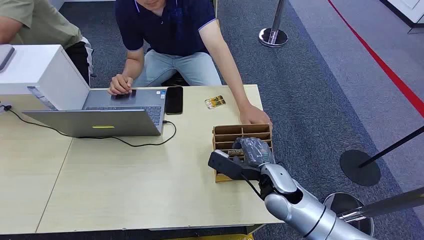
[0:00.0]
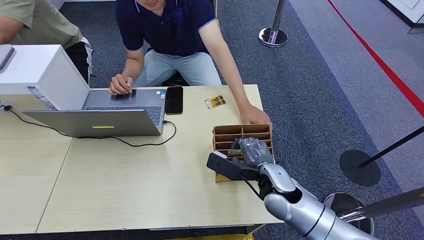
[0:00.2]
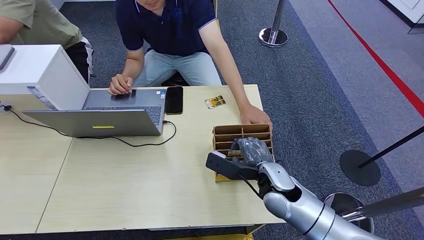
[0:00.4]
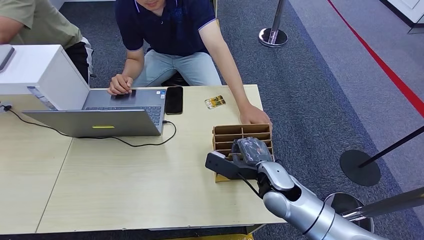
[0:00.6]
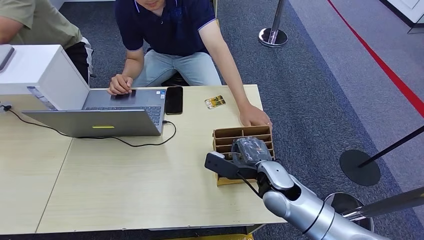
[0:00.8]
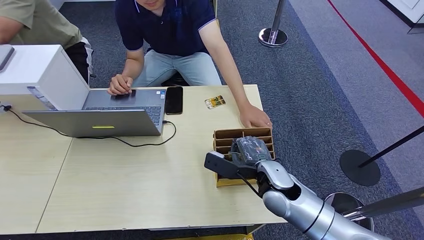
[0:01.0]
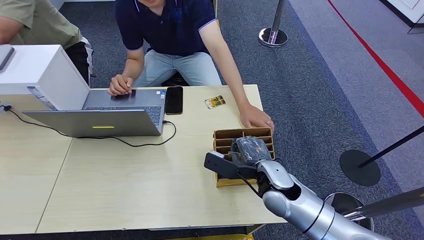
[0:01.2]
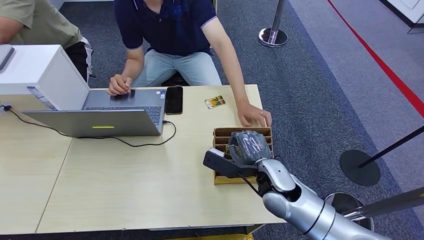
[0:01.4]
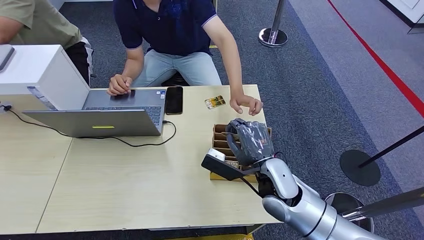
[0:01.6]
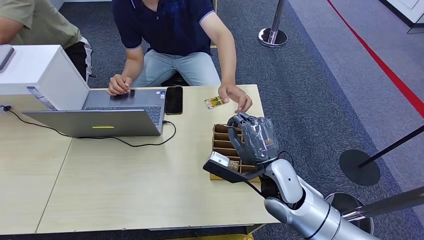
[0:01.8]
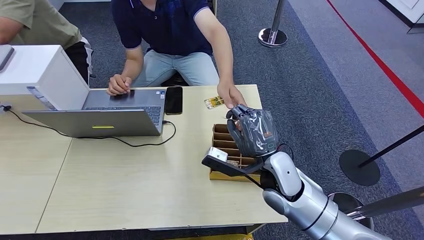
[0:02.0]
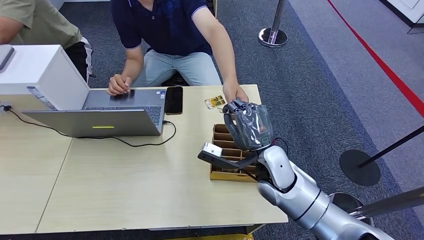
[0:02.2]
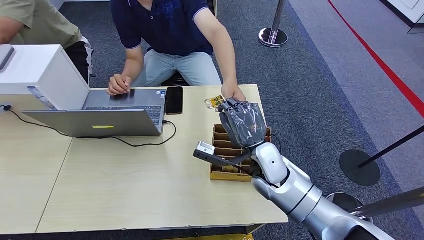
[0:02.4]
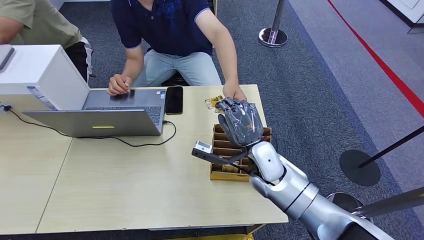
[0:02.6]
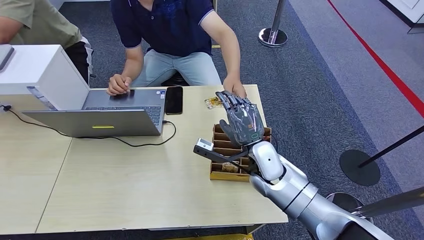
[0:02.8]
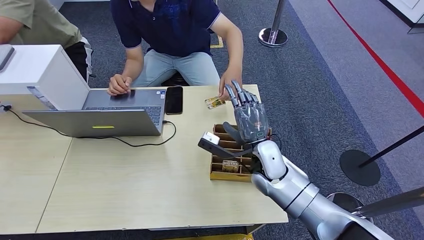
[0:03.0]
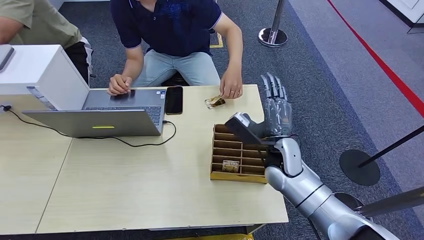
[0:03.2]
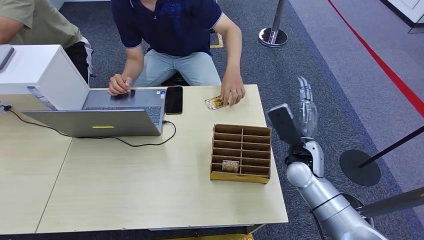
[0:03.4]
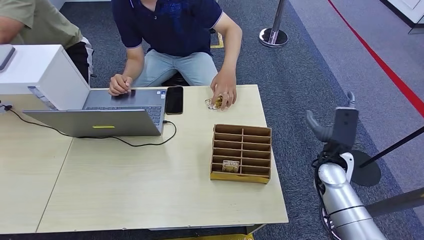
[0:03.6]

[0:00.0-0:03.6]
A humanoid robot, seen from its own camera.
Step, 0:00.0 to 0:01.8: Pick up the key card from the card box.
Step, 0:02.0 to 0:03.6: Hand the key card to the target.
0:01.8 to 0:03.6: The right hand is displaced to the right by some 15 cm.

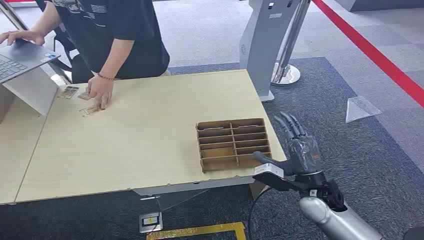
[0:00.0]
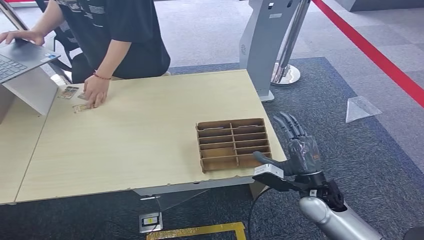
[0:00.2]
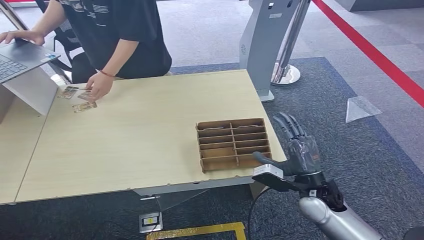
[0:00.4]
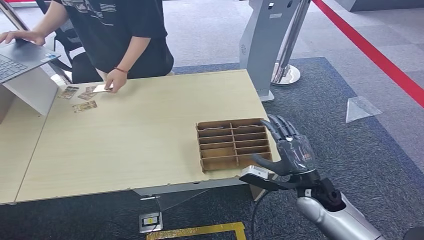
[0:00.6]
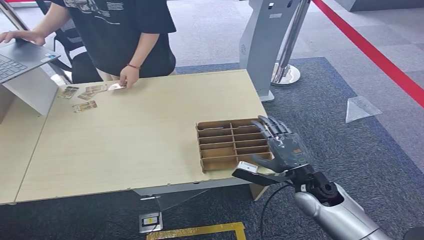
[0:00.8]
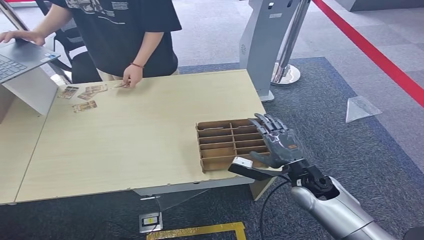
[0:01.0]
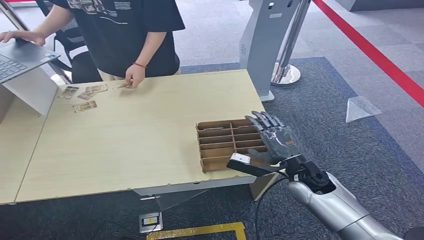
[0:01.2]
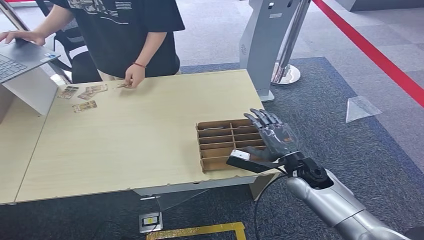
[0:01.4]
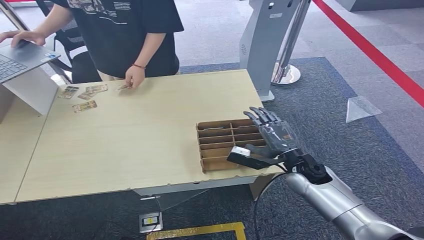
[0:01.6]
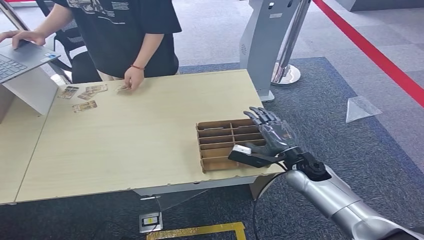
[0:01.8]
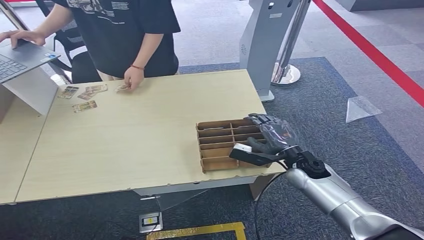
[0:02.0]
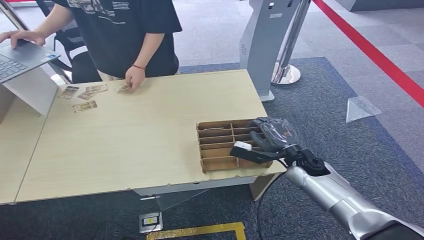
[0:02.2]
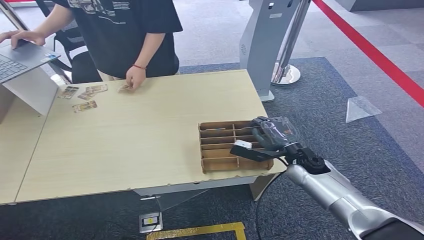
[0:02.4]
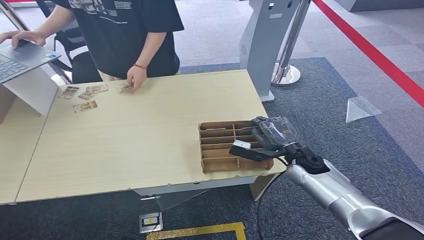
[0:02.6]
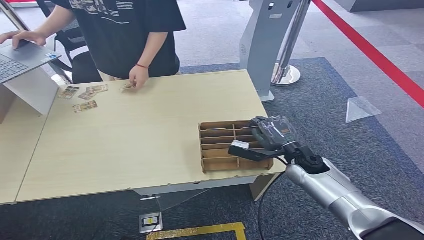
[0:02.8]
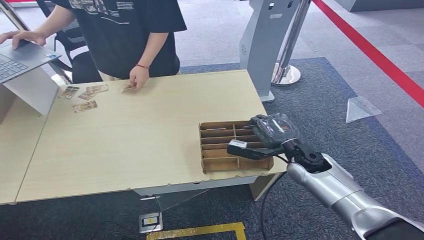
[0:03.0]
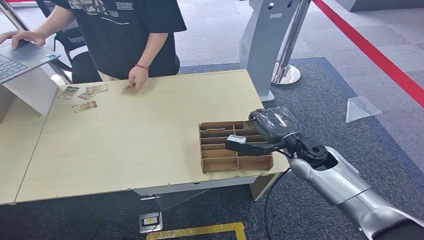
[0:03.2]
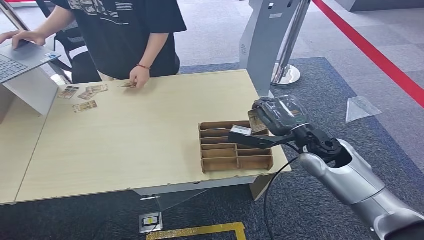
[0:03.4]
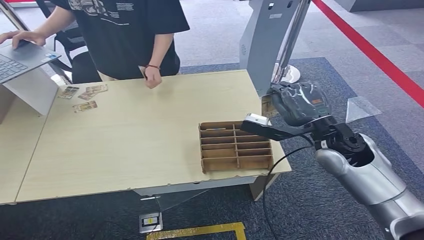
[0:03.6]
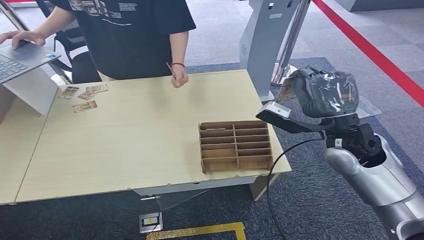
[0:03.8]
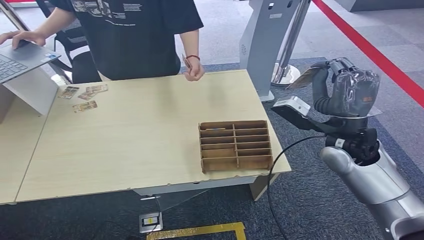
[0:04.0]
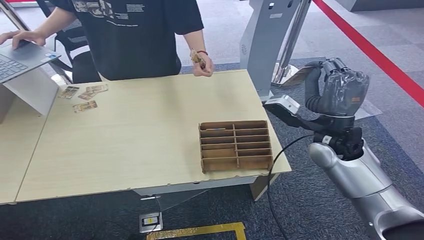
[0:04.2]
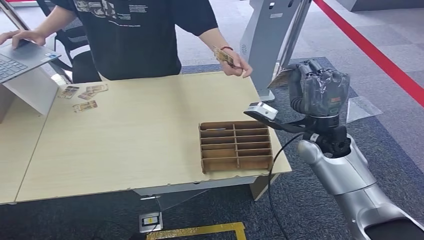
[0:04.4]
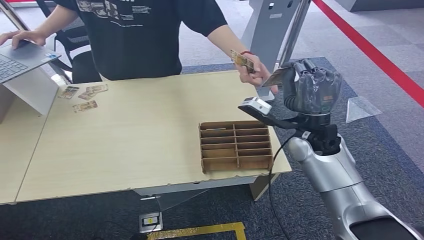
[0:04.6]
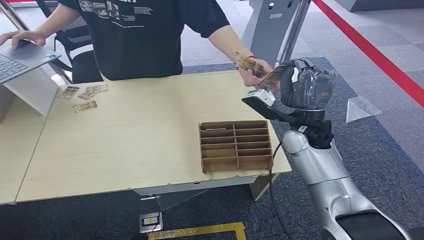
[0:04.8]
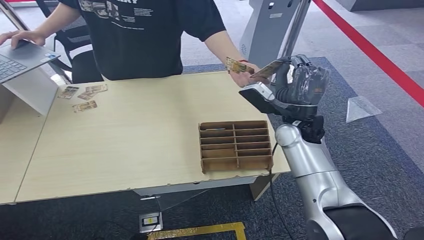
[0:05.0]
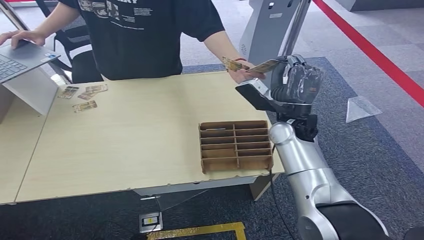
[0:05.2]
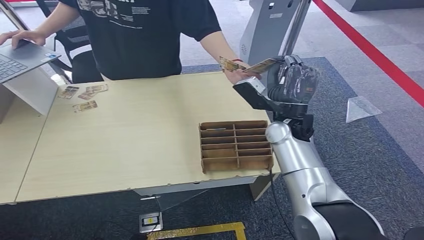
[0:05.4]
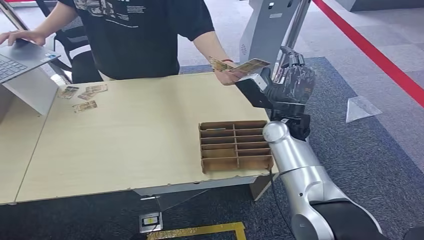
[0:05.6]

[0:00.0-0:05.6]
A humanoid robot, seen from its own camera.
Step, 0:00.0 to 0:03.8: Pick up the key card from the card box.
Step, 0:04.0 to 0:05.4: Hand the key card to the target.
0:01.4 to 0:02.8: The hands move only a little.
0:02.8 to 0:04.2: The right hand moves upward, some 15 cm.
0:04.2 to 0:05.6: The right hand travels to the left and forward by roughly 10 cm.
